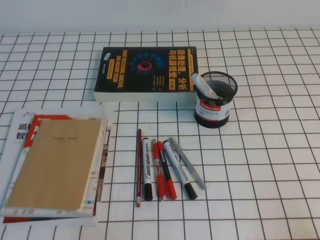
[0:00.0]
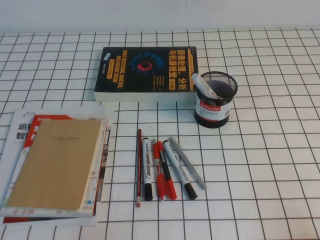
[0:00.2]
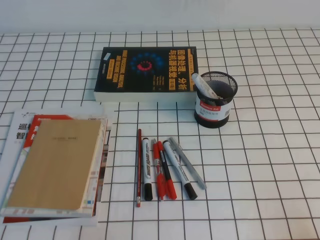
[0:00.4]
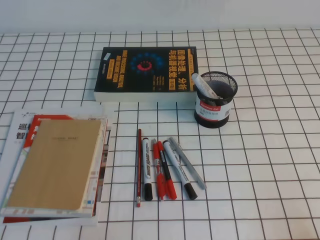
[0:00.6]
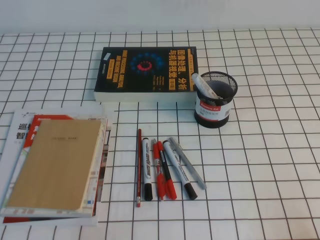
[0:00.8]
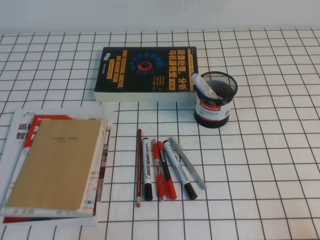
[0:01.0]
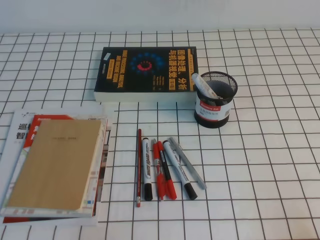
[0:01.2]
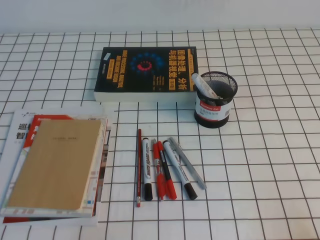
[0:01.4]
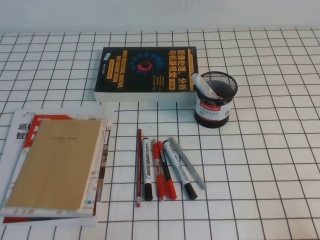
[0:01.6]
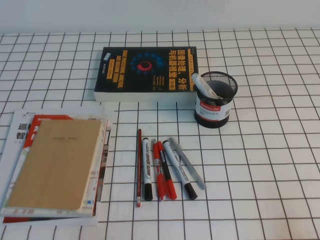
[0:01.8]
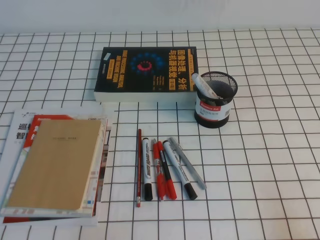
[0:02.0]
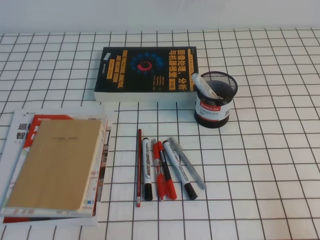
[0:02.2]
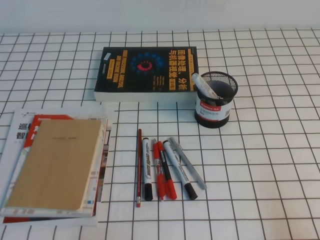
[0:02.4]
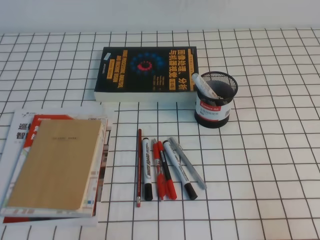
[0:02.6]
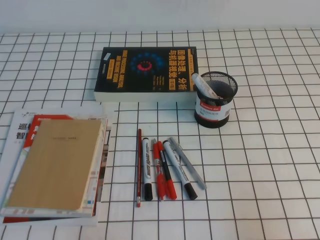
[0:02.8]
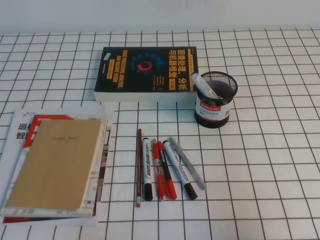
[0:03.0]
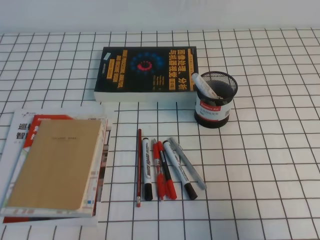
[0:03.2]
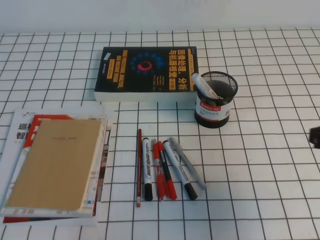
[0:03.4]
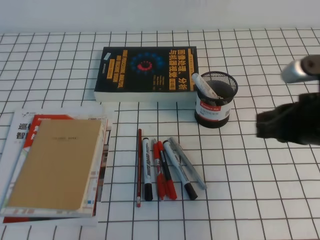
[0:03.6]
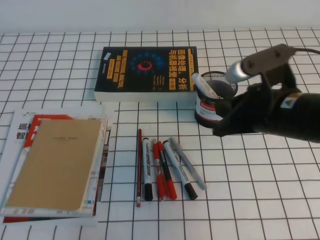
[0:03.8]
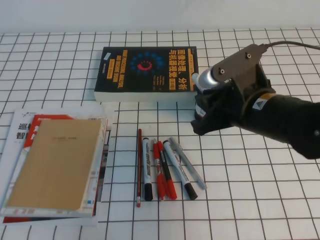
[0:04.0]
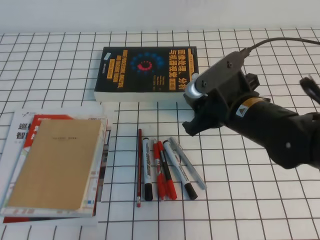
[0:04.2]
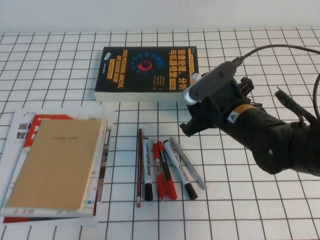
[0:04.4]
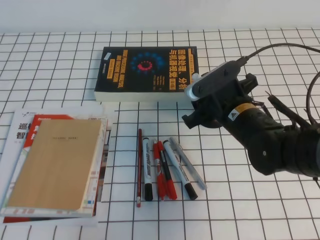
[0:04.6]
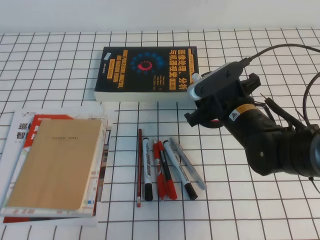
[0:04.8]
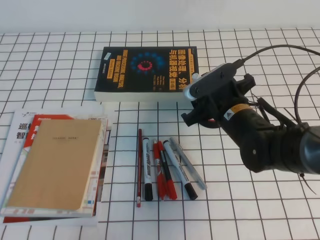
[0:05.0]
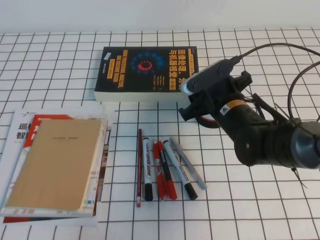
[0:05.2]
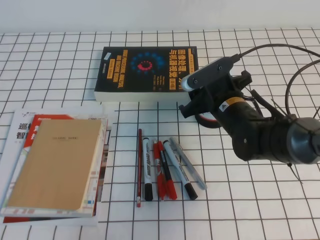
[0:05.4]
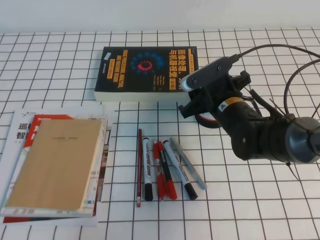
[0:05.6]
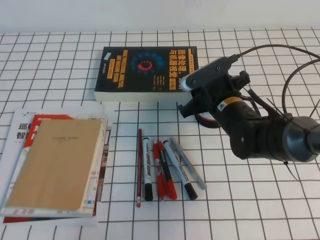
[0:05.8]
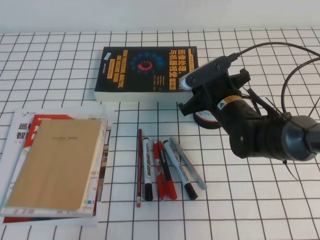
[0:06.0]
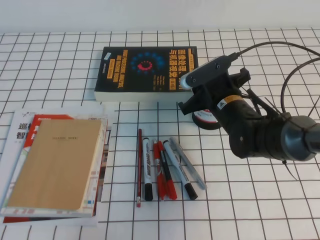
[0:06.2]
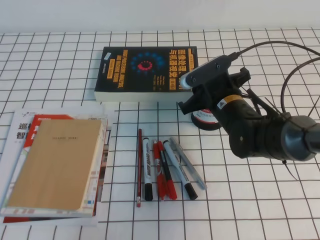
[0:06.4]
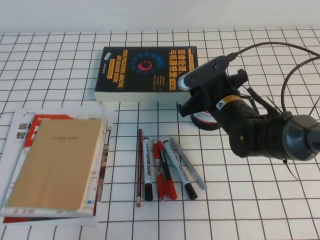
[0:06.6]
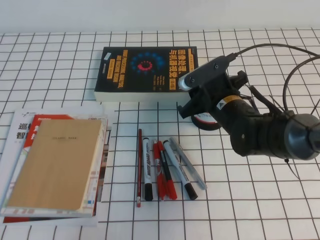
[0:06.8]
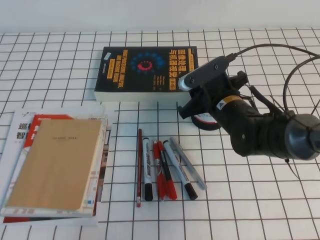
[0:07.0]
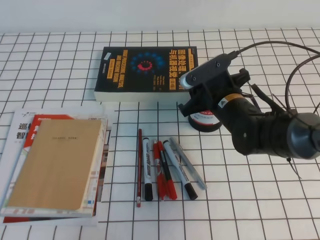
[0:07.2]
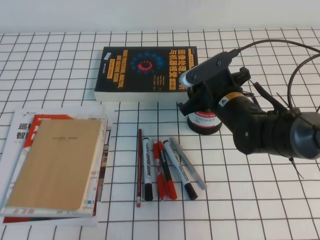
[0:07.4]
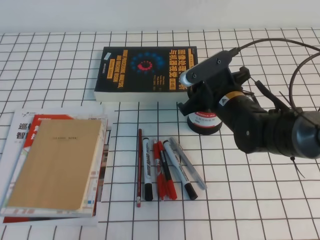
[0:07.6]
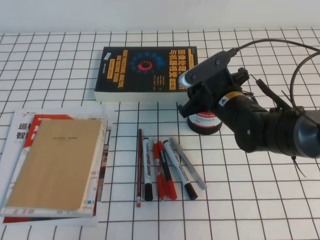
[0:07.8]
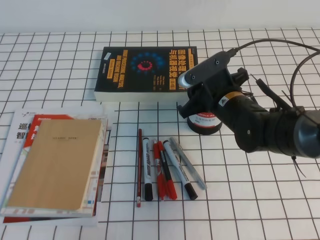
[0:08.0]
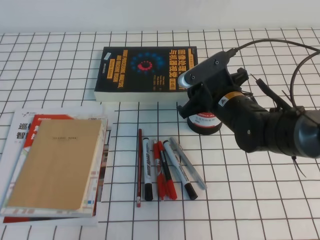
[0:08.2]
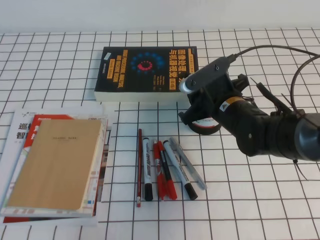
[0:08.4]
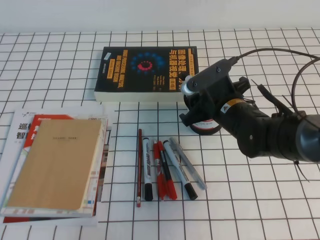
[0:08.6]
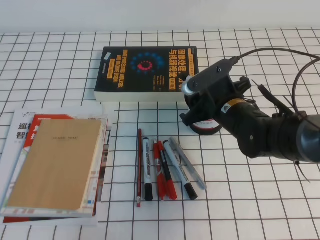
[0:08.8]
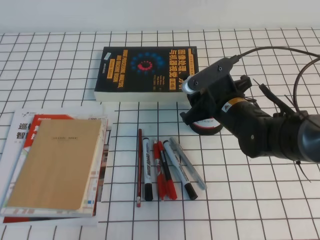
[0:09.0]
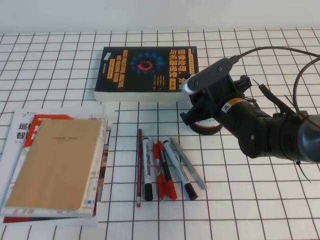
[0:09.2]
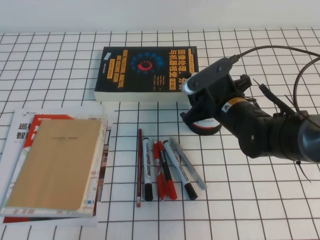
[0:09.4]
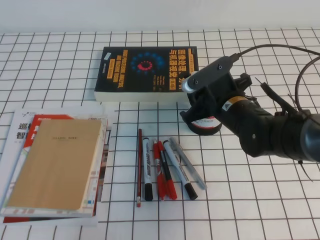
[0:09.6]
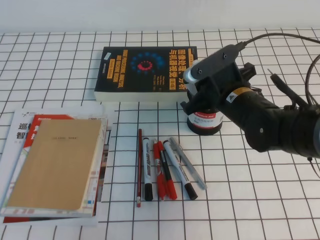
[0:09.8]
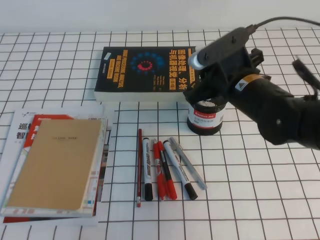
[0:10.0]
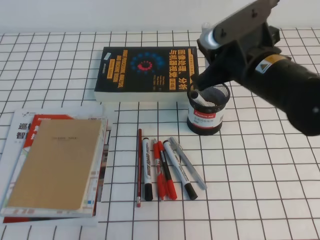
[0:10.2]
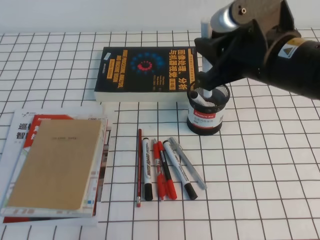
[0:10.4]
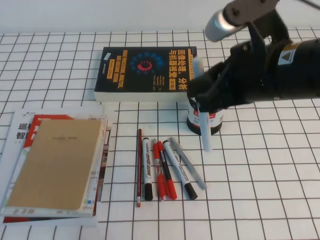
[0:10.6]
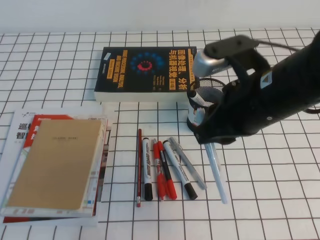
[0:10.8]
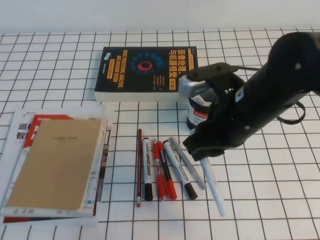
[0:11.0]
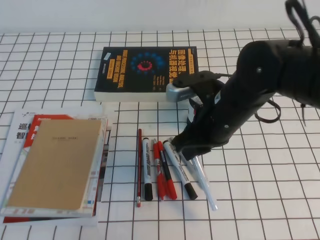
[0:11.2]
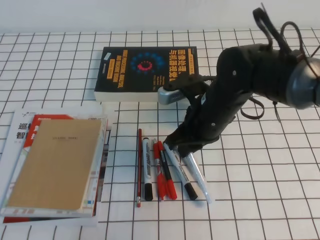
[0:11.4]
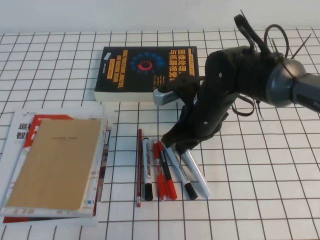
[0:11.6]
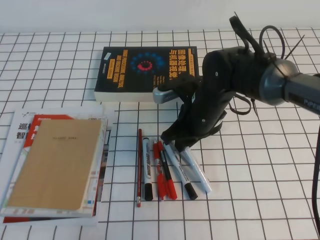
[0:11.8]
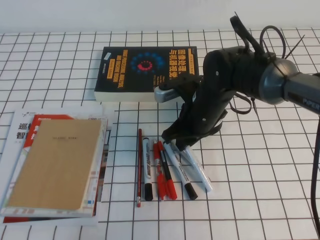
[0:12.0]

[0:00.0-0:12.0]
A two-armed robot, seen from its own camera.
0:00.0 to 0:01.6: Neither gripper changes place.
0:01.6 to 0:03.0: The right gripper shifts approximately 10 cm upward.
0:03.0 to 0:04.4: The right gripper shifts approximately 30 cm forward and to the left, and opens.
0:04.4 to 0:06.0: The right gripper heads forward, covering about 5 cm, and closes.
0:06.0 to 0:07.6: There are only small adjustments of the grippers.
0:07.6 to 0:09.0: The right gripper opens its fingers.
0:09.0 to 0:10.4: The right gripper travels upward and backward by approximately 15 cm, and closes up.
0:10.4 to 0:12.0: The right gripper is displaced downward, forward and to the left by about 15 cm.

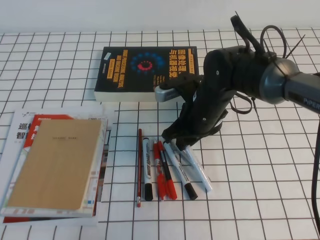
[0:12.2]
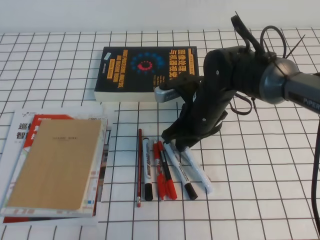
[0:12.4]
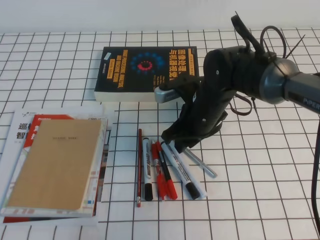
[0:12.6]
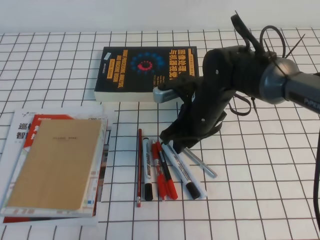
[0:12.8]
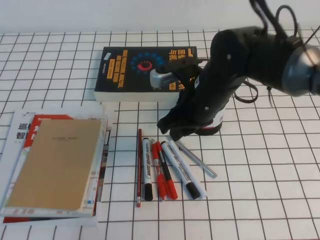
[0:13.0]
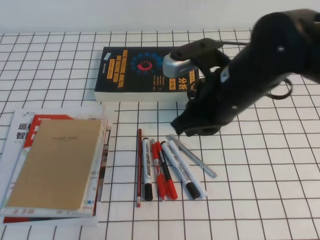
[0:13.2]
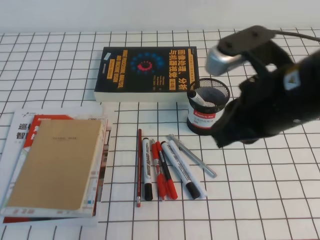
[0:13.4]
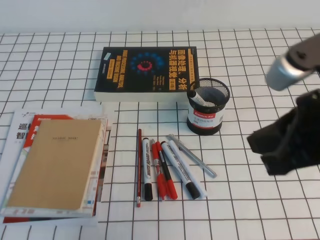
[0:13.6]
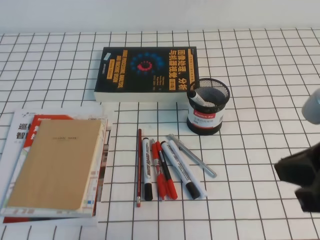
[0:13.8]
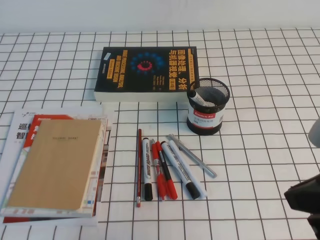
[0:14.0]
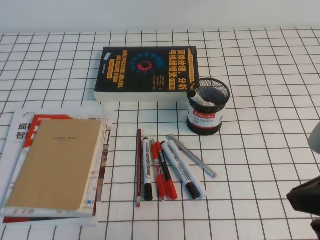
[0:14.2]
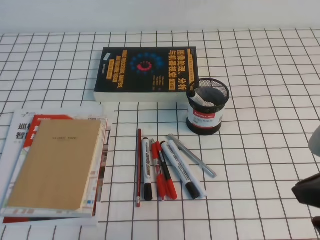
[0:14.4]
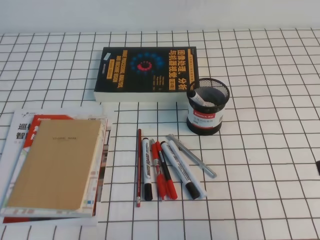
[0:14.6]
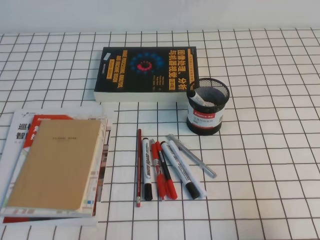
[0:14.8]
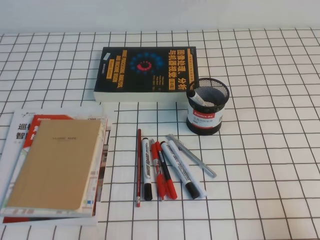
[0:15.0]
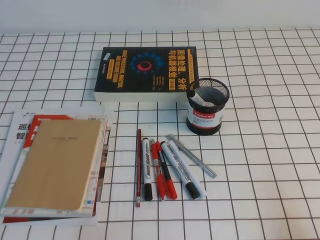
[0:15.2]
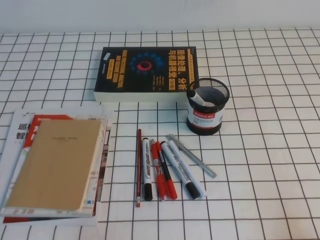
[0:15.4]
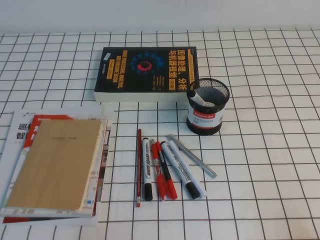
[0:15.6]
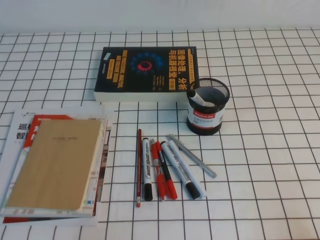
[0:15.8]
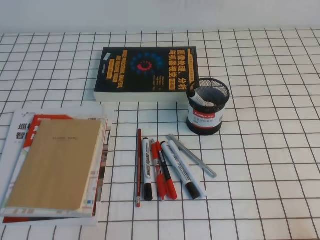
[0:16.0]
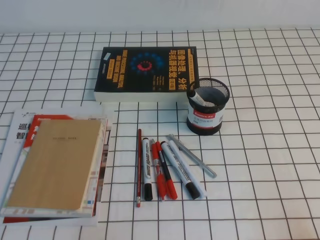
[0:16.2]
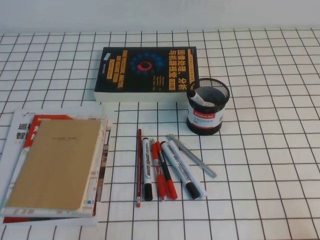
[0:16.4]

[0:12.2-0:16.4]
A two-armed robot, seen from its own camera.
Step, 0:12.2 to 0:16.4: Pick up the pen from the pen holder.
0:12.2 to 0:13.6: The right gripper goes approximately 25 cm backward, upward and to the right, and closes.
0:13.6 to 0:15.0: The right gripper goes about 20 cm downward, to the right and backward.
0:15.0 to 0:16.4: The right gripper goes approximately 5 cm downward.

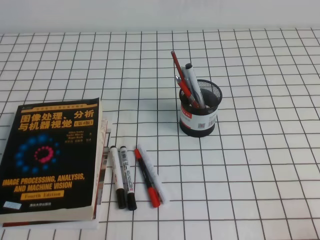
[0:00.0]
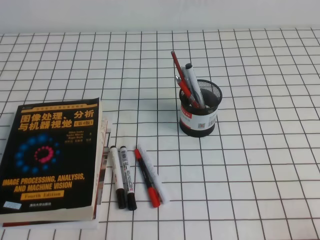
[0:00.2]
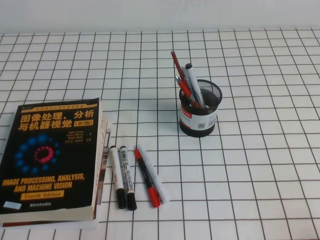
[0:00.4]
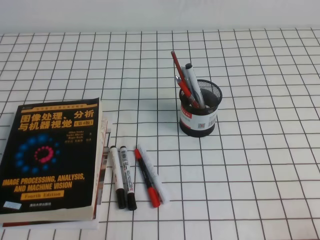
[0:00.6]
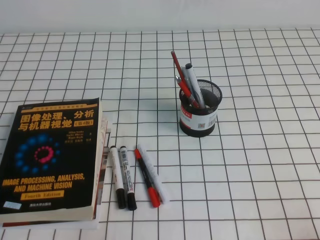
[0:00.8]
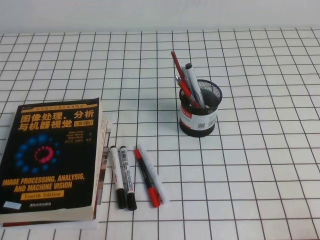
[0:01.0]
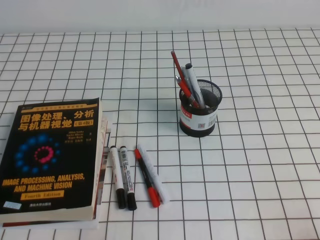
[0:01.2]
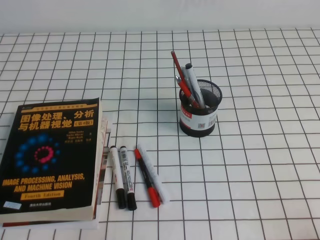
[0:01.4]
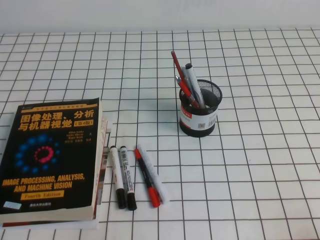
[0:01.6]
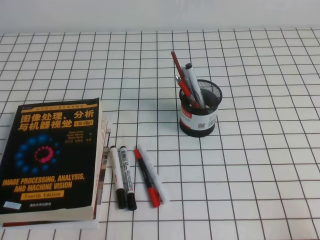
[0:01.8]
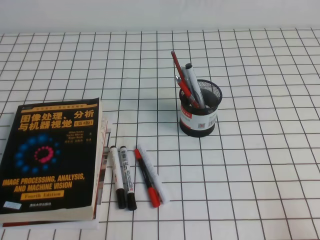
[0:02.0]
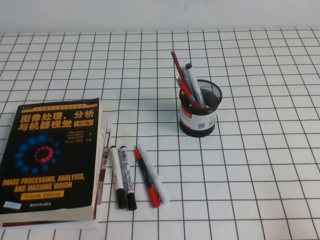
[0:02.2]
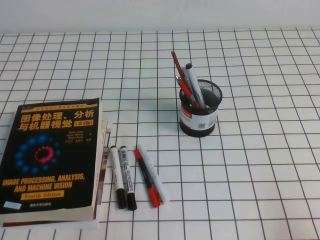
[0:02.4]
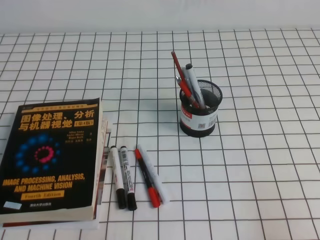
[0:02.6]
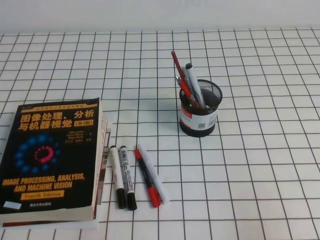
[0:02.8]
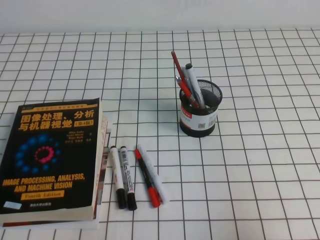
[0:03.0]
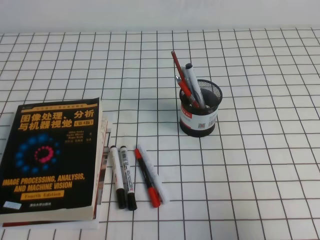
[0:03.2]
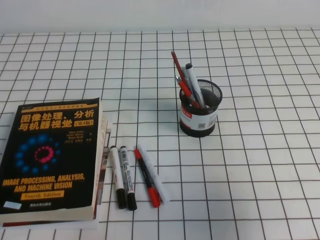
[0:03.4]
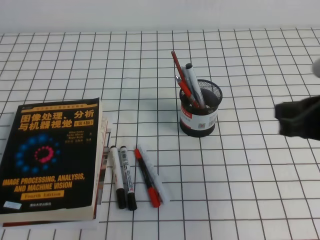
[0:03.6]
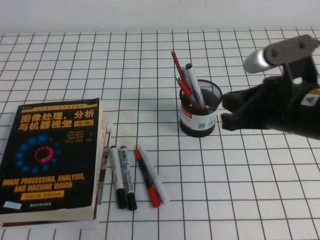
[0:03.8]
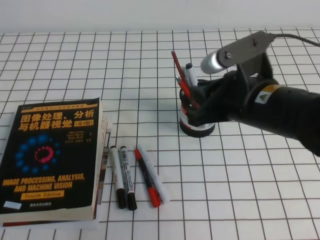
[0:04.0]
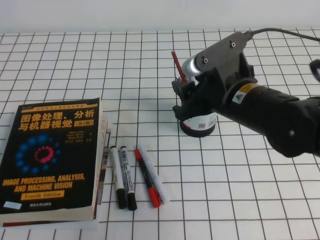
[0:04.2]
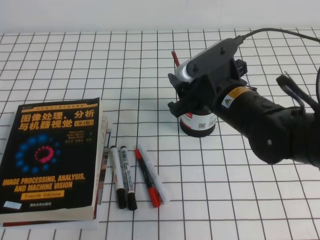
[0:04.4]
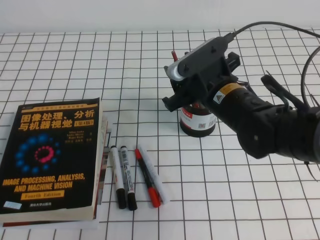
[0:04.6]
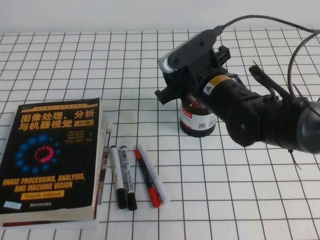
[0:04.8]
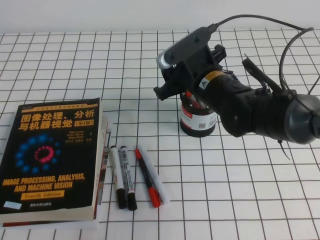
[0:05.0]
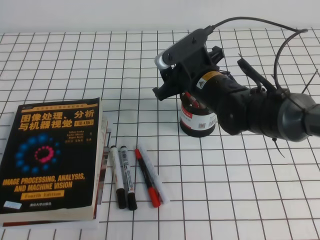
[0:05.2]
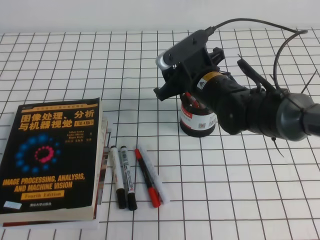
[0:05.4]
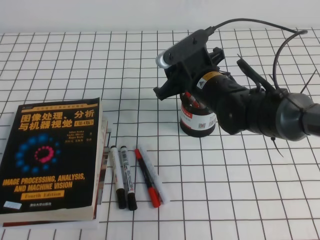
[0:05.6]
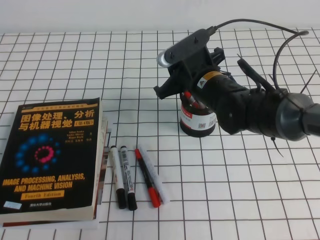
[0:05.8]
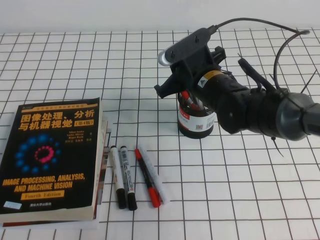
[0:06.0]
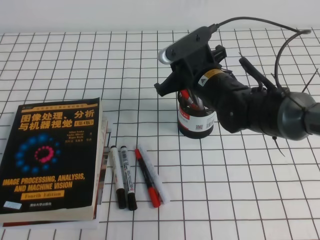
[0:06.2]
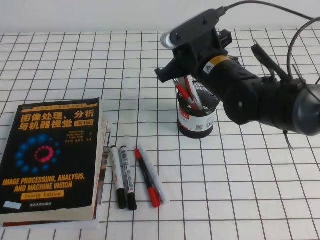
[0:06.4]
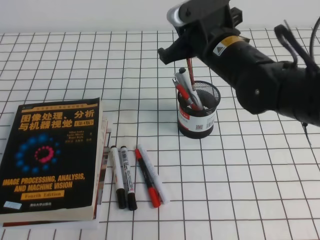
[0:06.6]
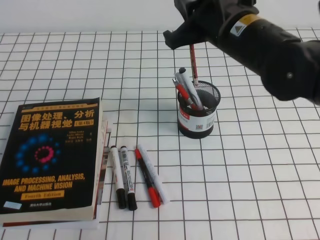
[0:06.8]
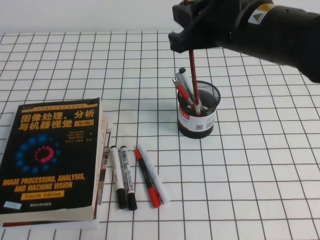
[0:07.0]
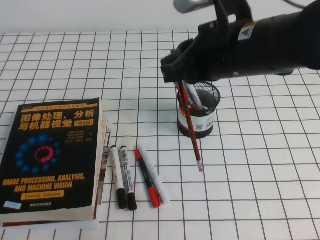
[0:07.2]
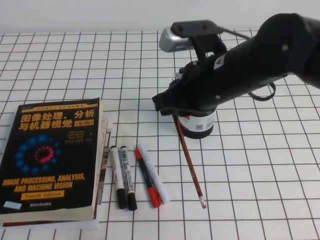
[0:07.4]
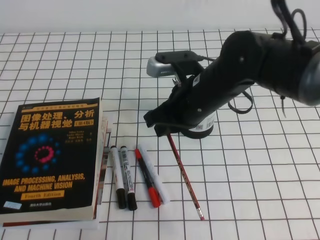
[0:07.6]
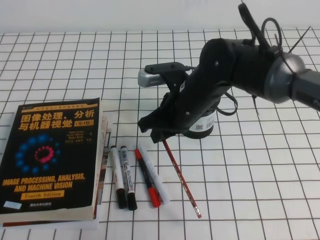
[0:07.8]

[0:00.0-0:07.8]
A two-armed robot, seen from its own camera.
0:00.0 to 0:01.6: Neither gripper changes place.
0:01.6 to 0:03.2: The right gripper goes about 15 cm upward and forward.
0:03.2 to 0:04.6: The right gripper goes approximately 30 cm to the left and forward, and opens its fingers.
0:04.6 to 0:06.2: The right gripper heads forward, covering about 5 cm, and closes its fingers.
0:06.2 to 0:07.8: The right gripper moves roughly 10 cm upward and comes back.
